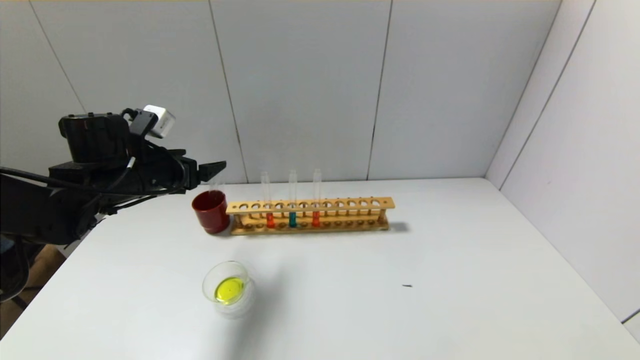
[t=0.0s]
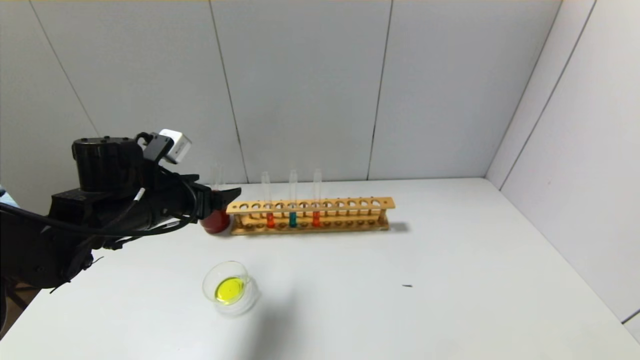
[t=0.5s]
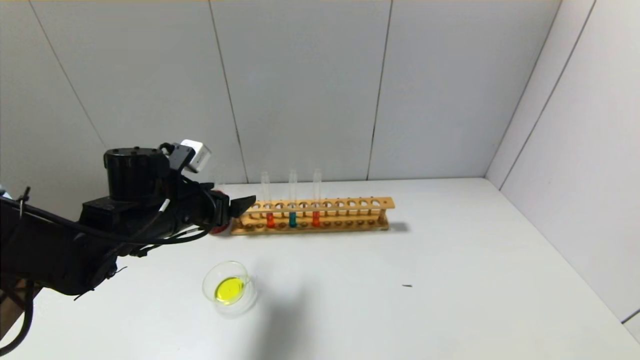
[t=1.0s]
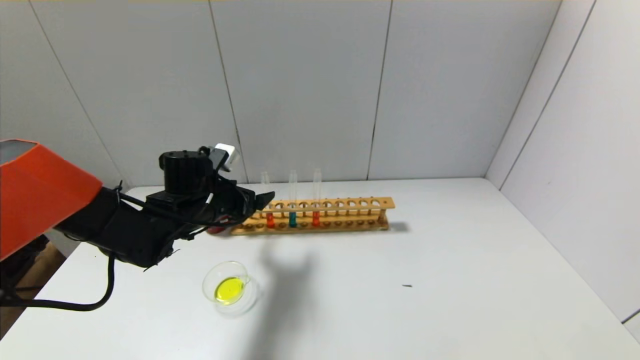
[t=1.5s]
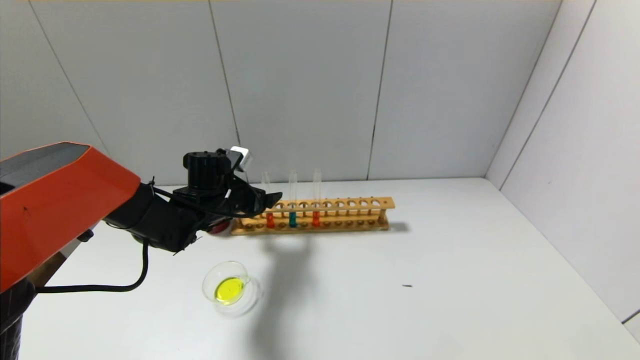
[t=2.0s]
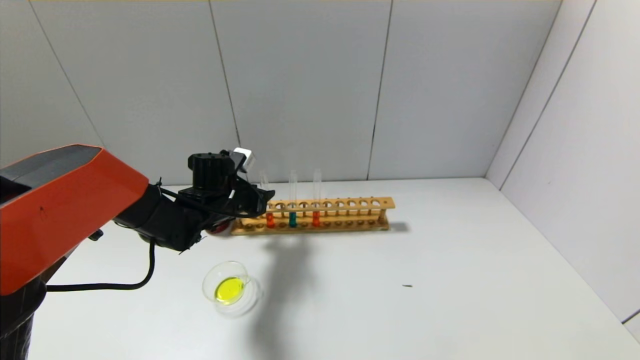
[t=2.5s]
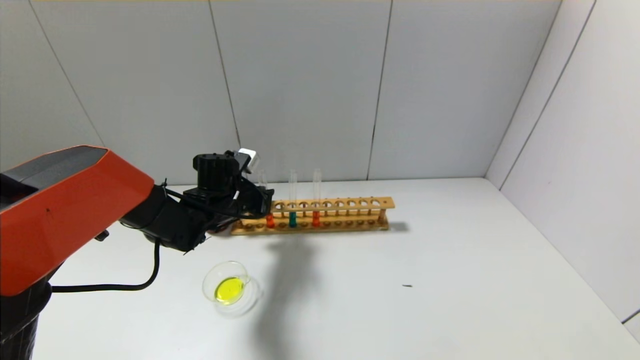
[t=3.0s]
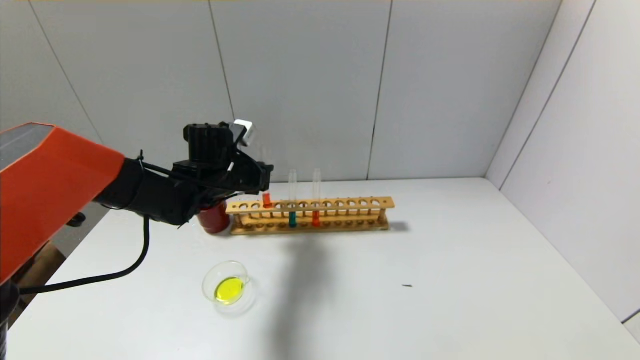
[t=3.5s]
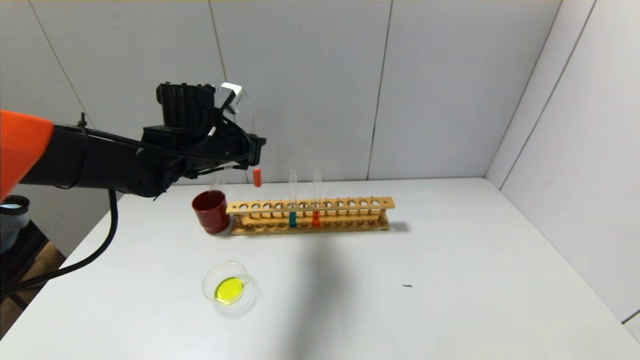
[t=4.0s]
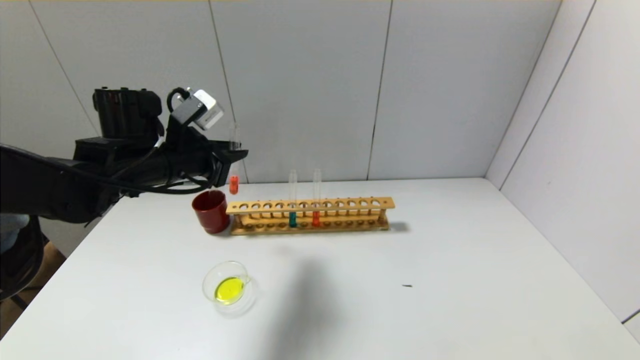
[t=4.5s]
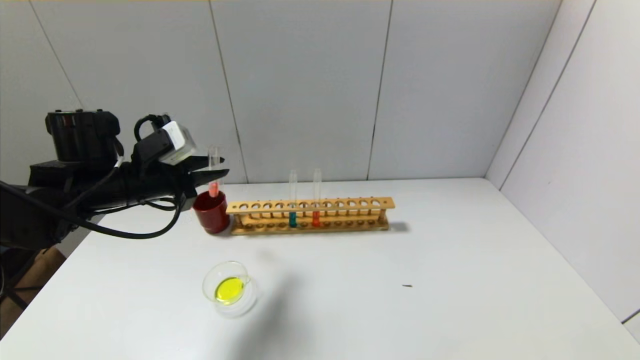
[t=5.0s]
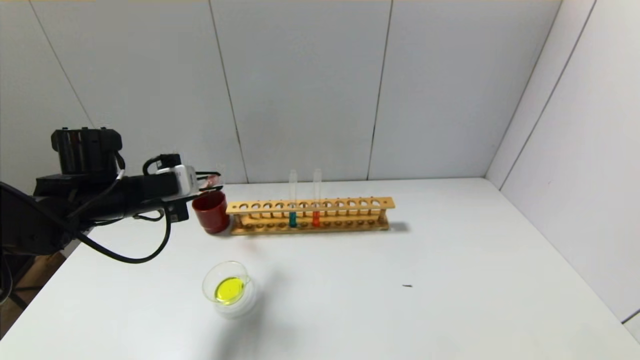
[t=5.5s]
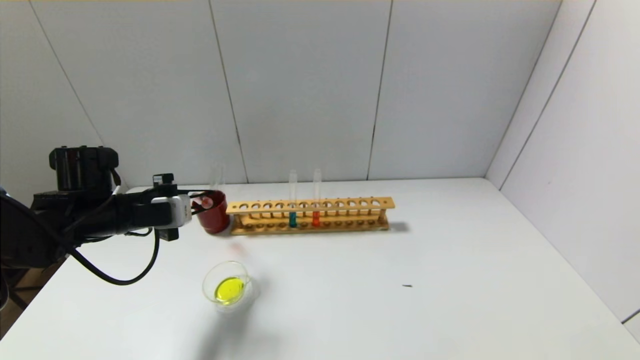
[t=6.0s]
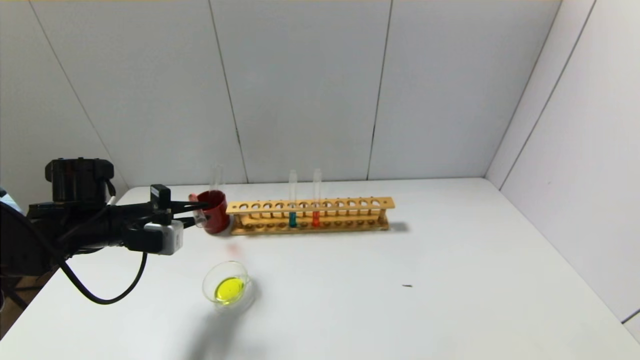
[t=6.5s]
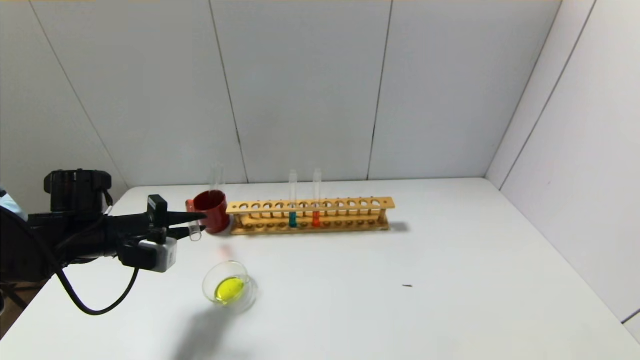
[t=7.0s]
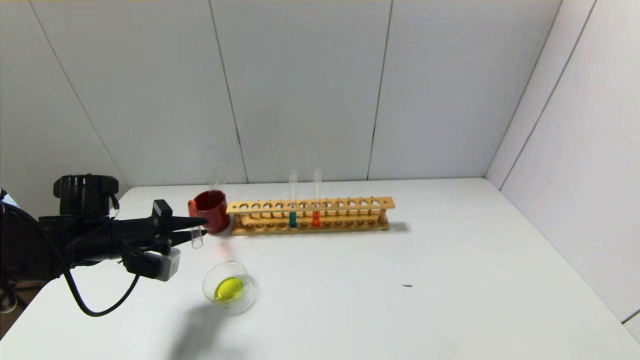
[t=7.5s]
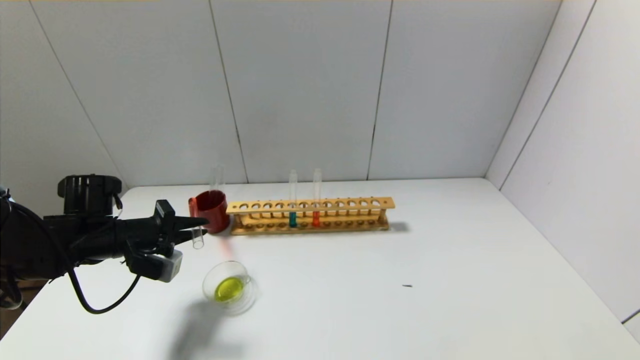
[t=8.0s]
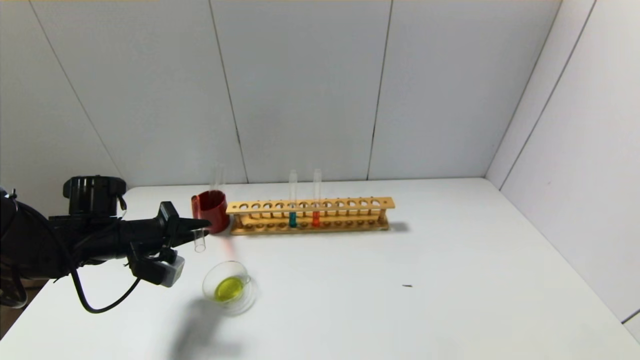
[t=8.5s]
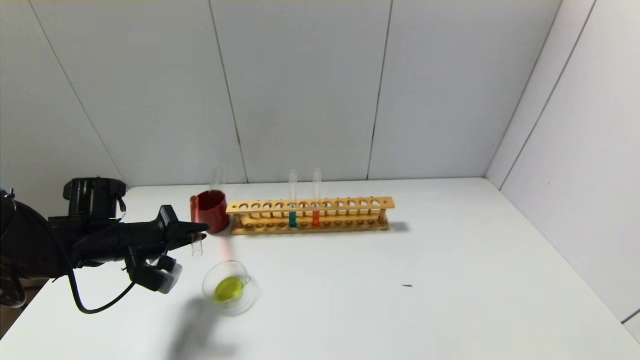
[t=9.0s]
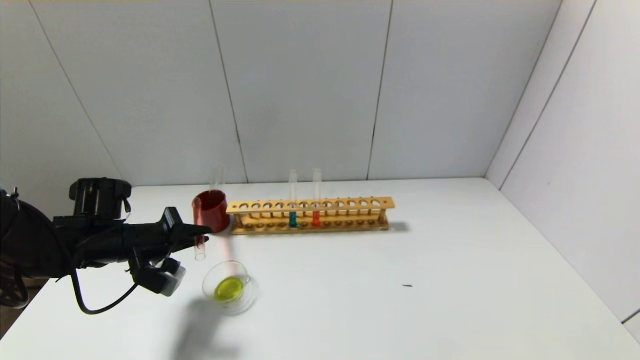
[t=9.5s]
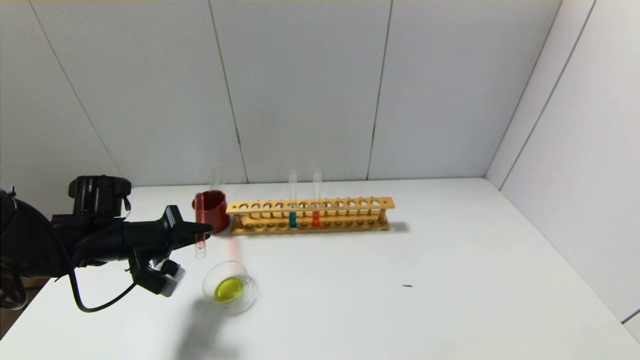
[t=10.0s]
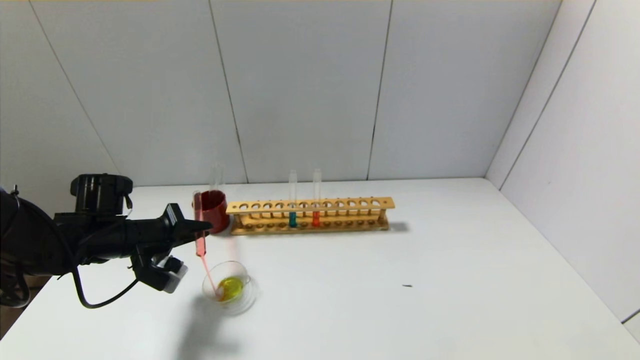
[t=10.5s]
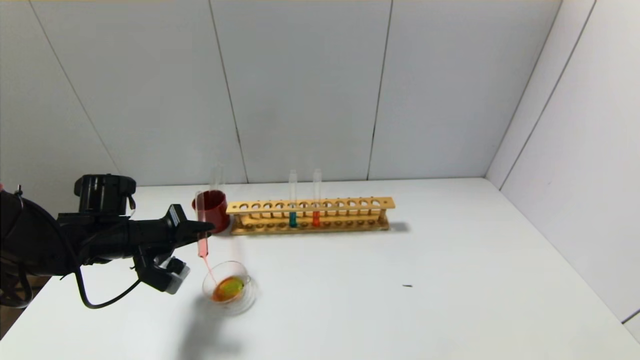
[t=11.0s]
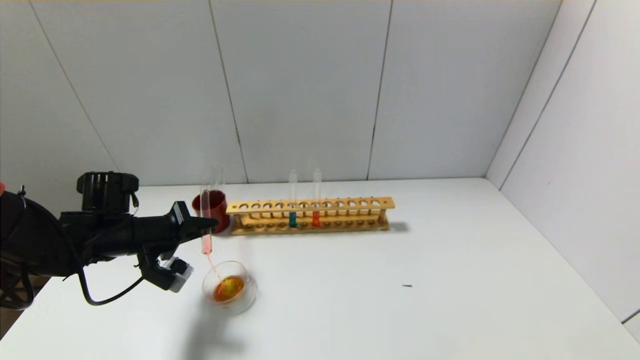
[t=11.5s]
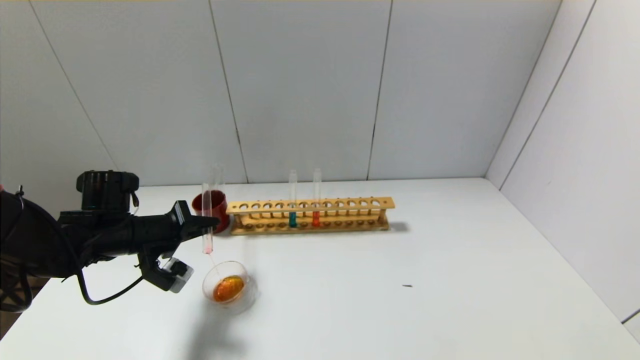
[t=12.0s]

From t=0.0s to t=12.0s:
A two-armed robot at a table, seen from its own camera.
Step, from t=0.0s to t=2.5s: Grasp the red reagent with the left gripper.
From t=0.0s to t=2.0s: The left gripper shifts some 15 cm to the right, downward and forward.
From t=2.0s to t=4.0s: The left gripper travels upward by about 10 cm, and closes.
From t=4.0s to t=6.0s: The left gripper travels to the left, downward and backward by roughly 15 cm.
From t=6.0s to t=8.0s: The left gripper changes place by approximately 5 cm.
From t=8.0s to t=10.0s: The grippers make only small movements.
From t=10.0s to t=12.0s: The grippers make only small movements.

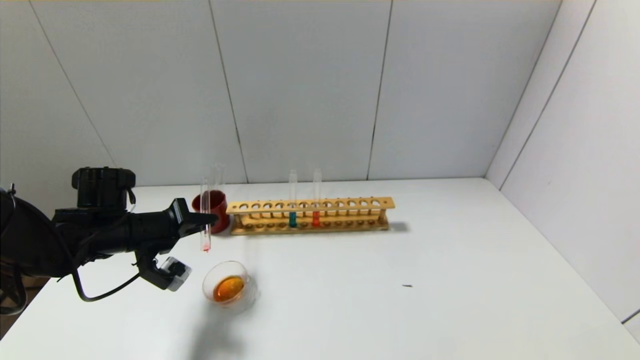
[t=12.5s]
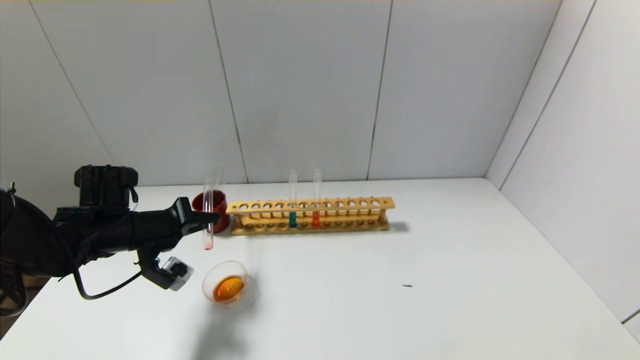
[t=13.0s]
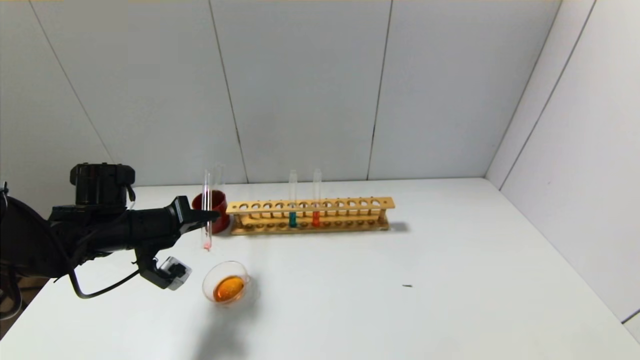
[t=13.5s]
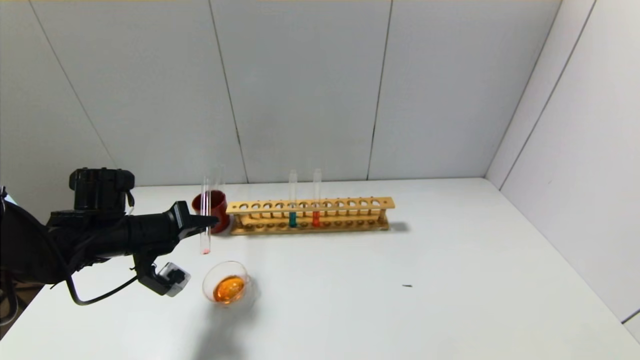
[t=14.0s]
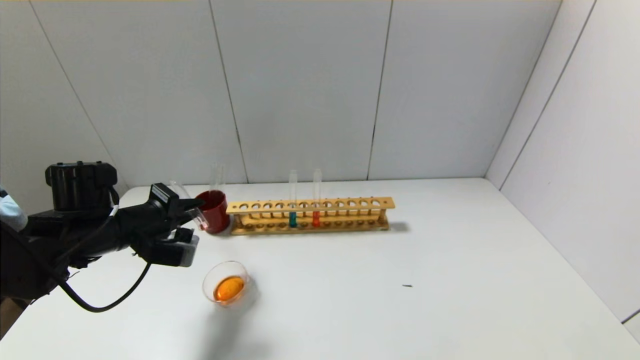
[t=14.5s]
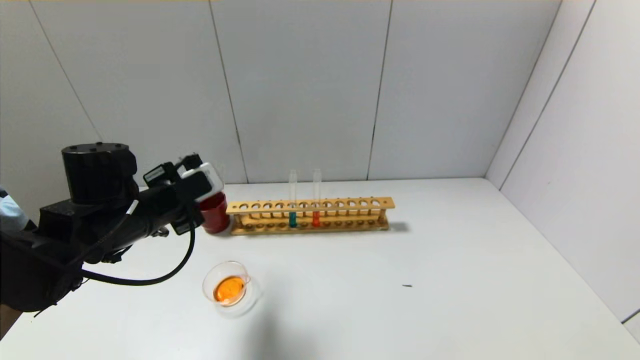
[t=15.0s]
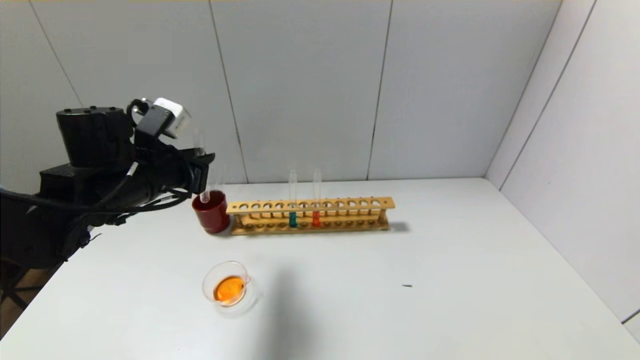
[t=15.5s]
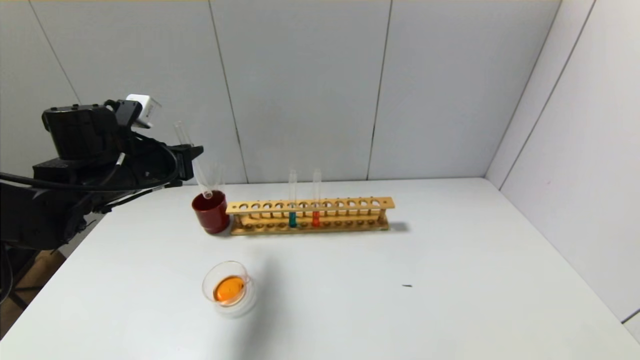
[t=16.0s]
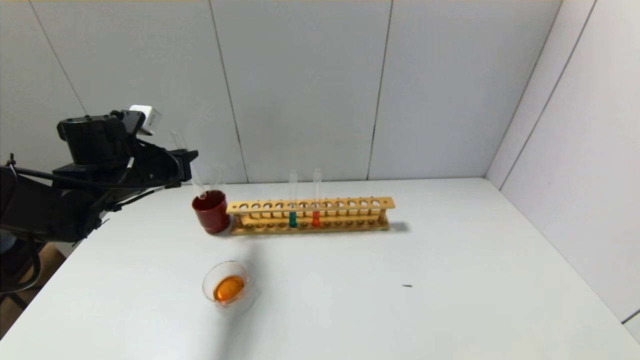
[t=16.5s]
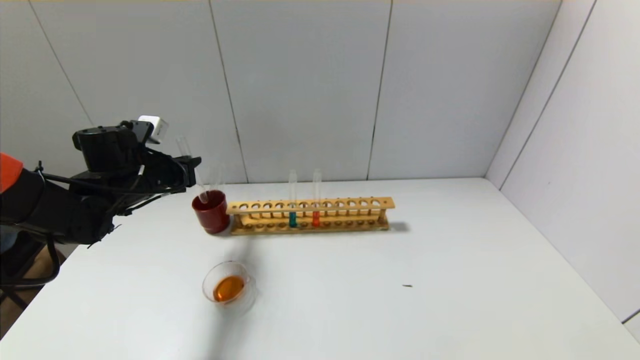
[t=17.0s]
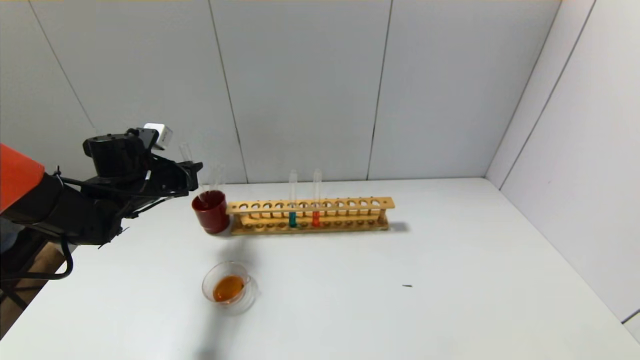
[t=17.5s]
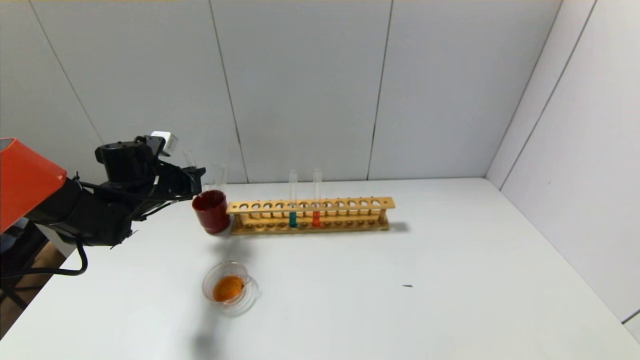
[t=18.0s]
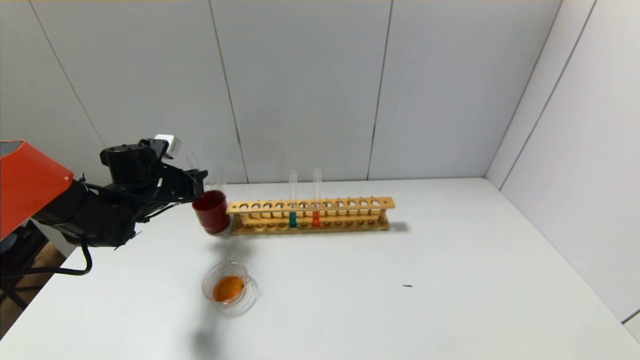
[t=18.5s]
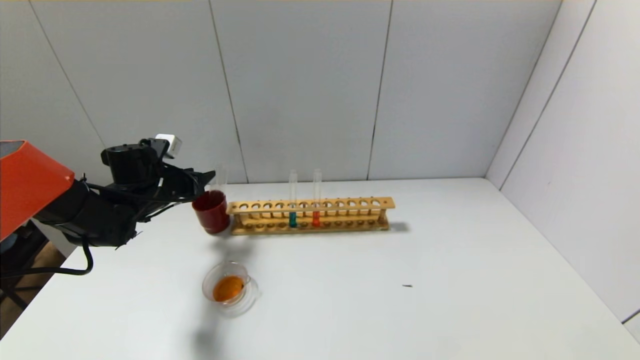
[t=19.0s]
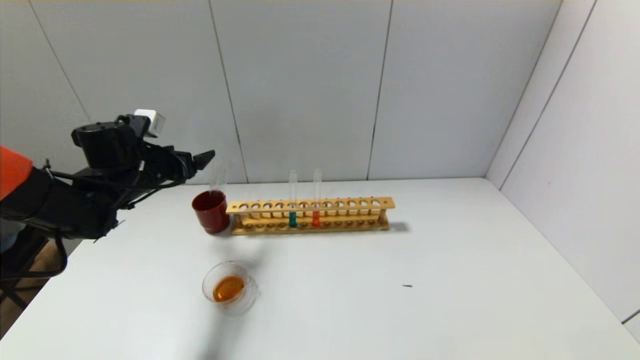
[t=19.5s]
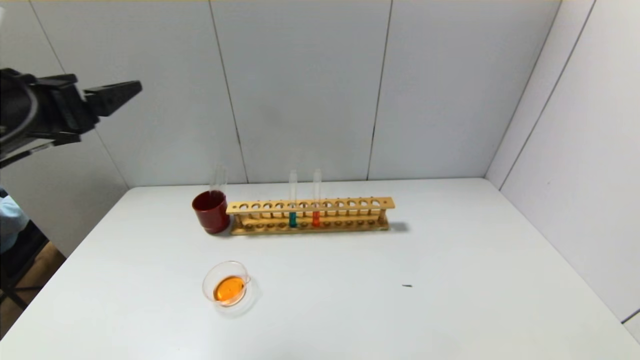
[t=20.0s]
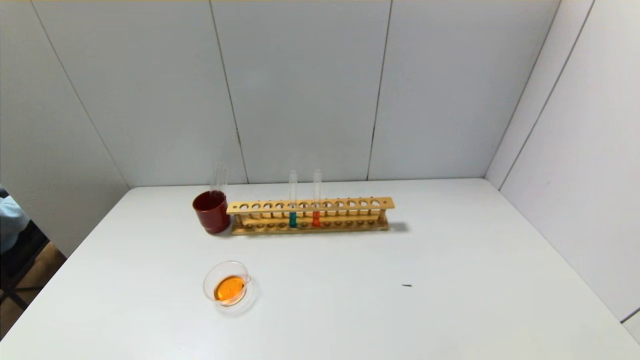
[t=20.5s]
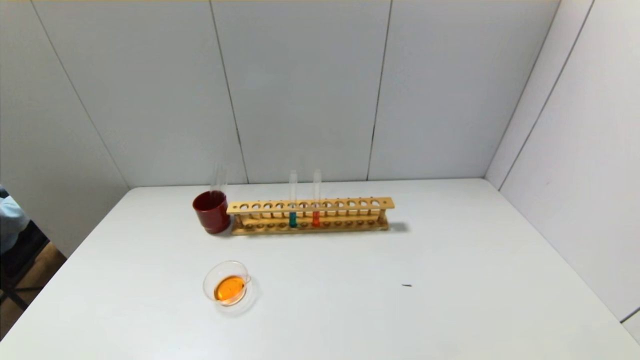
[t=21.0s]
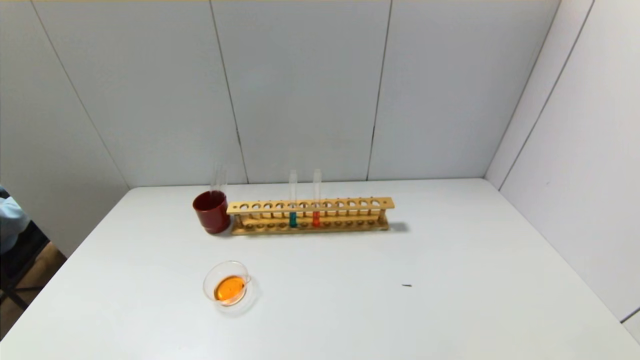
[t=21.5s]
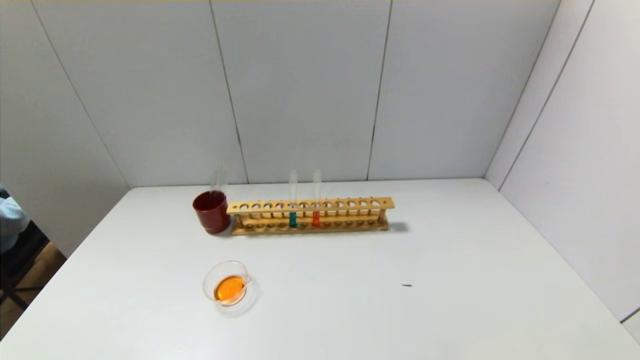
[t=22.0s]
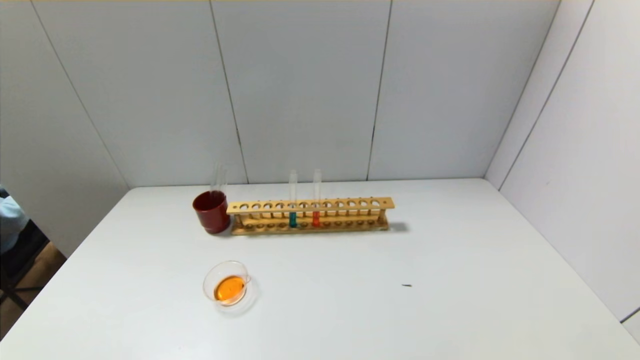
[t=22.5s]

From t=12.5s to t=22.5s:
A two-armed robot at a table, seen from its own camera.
Step, from t=14.5s to t=18.5s: Place the test tube into the brown cup with the left gripper.
From t=14.5s to t=16.5s: The left gripper heads forward, covering about 5 cm.
From t=16.5s to t=18.5s: The left gripper shifts approximately 5 cm downward.
From t=18.5s to t=20.5s: The left gripper travels backward by approximately 40 cm, and opens its fingers.
